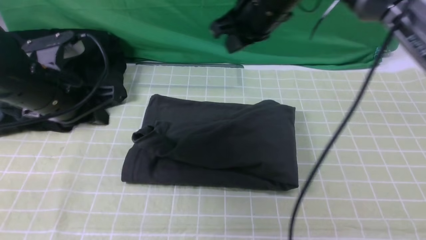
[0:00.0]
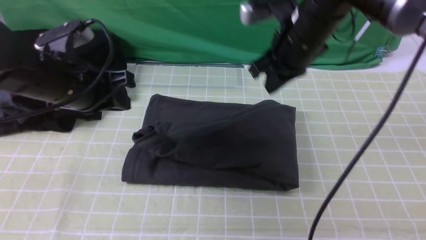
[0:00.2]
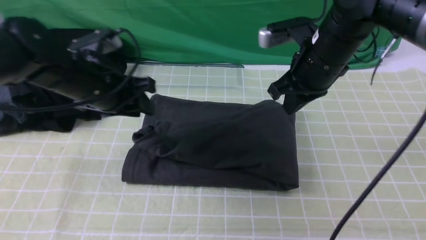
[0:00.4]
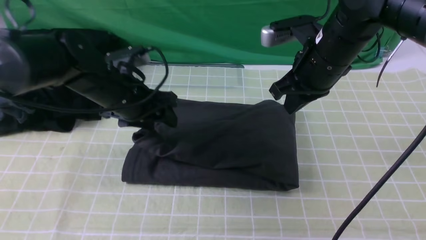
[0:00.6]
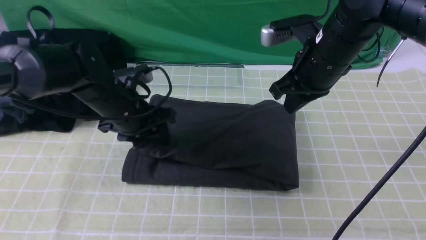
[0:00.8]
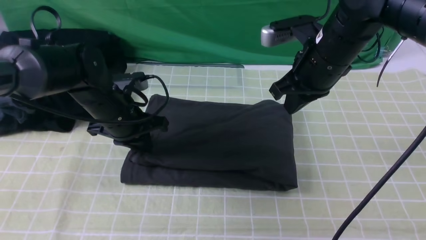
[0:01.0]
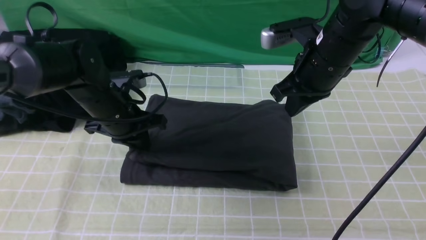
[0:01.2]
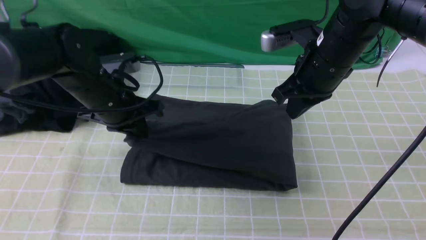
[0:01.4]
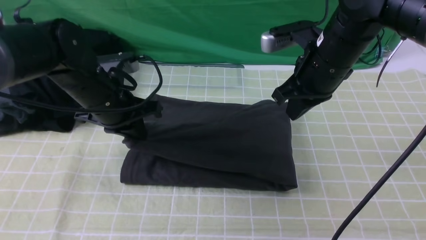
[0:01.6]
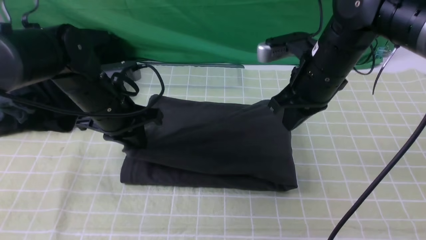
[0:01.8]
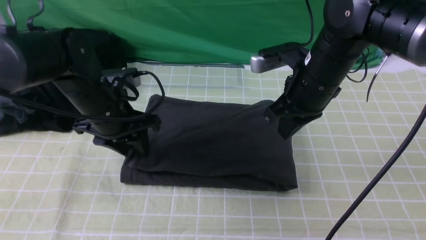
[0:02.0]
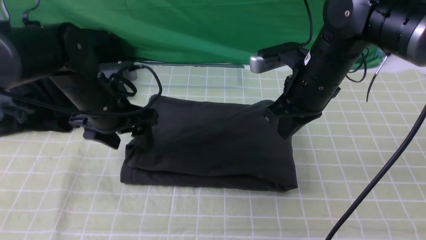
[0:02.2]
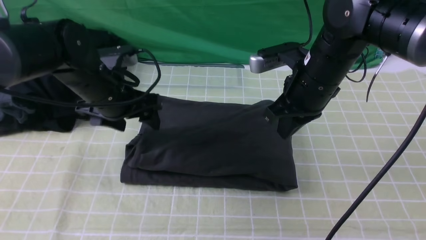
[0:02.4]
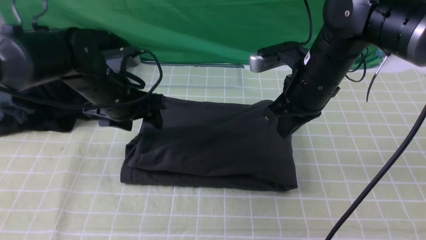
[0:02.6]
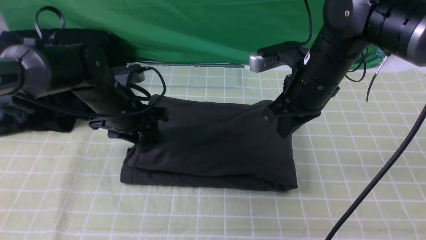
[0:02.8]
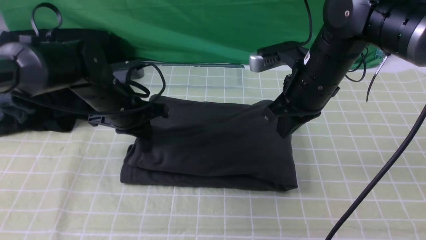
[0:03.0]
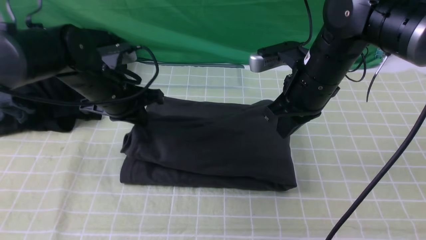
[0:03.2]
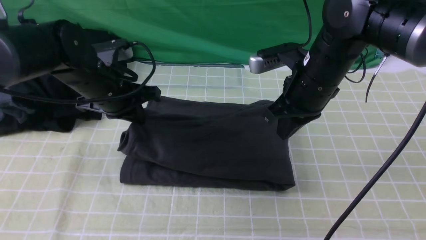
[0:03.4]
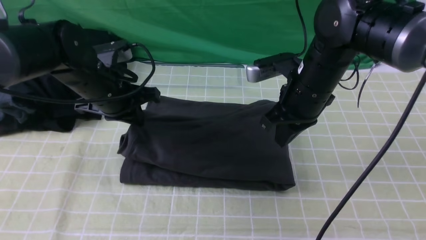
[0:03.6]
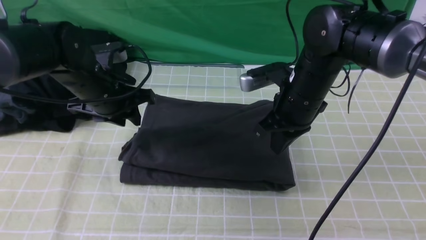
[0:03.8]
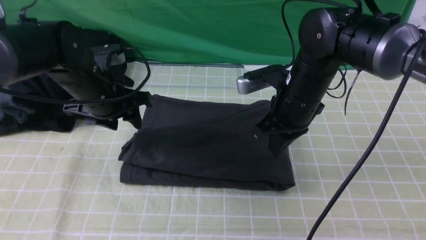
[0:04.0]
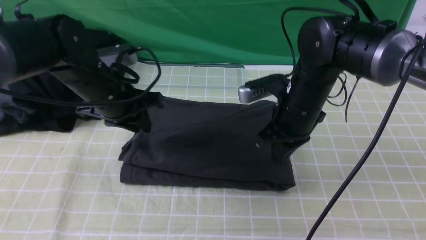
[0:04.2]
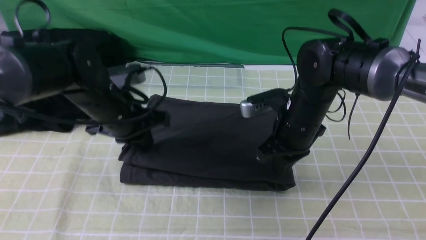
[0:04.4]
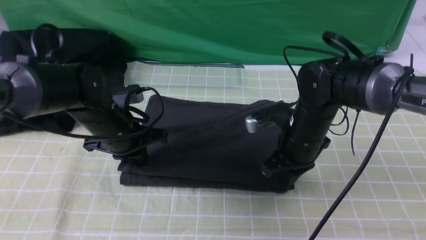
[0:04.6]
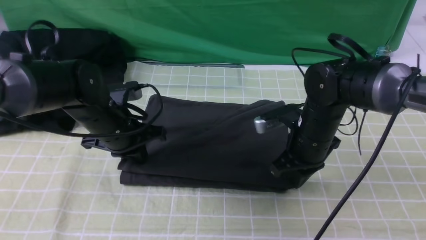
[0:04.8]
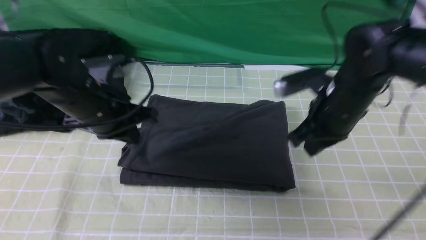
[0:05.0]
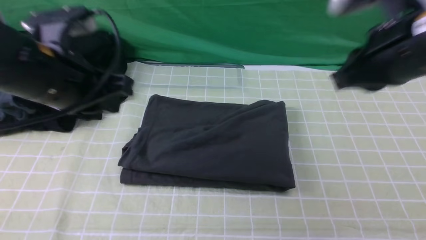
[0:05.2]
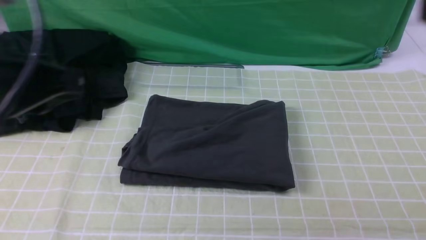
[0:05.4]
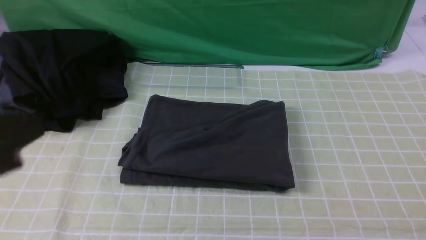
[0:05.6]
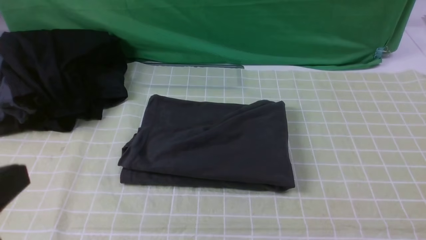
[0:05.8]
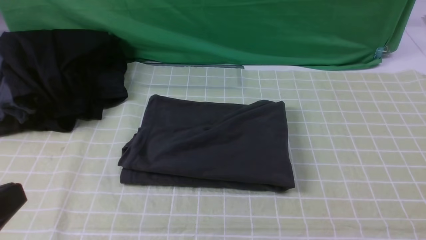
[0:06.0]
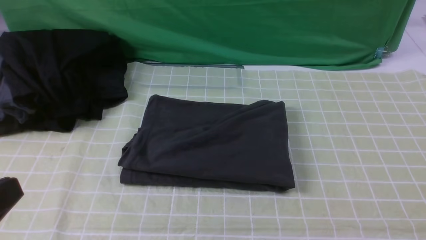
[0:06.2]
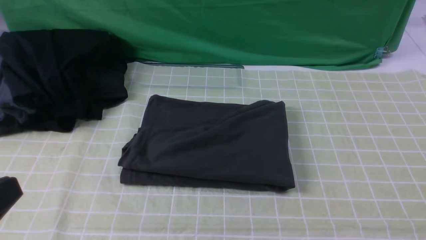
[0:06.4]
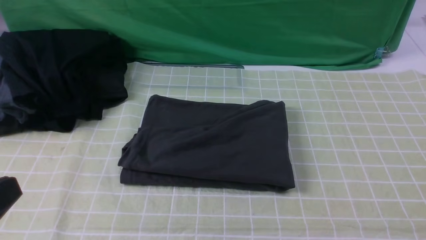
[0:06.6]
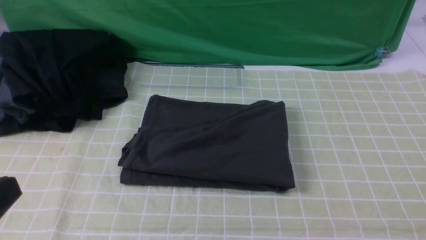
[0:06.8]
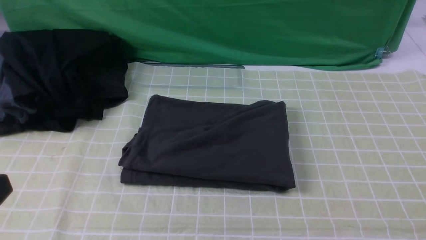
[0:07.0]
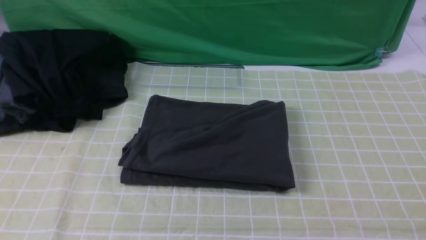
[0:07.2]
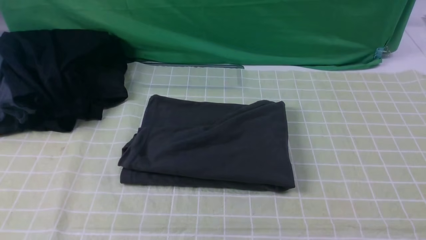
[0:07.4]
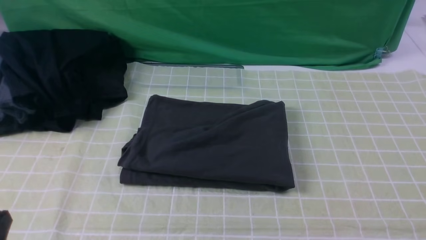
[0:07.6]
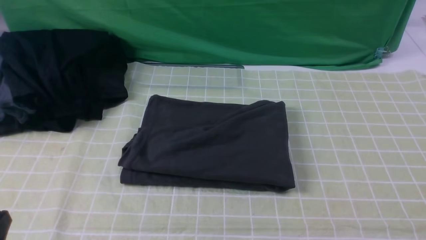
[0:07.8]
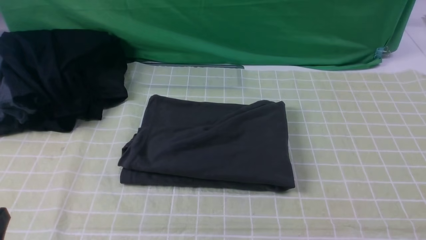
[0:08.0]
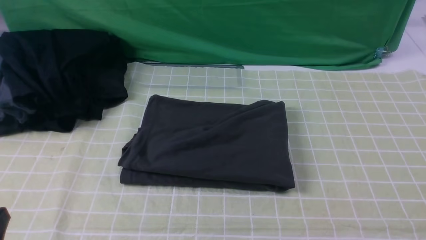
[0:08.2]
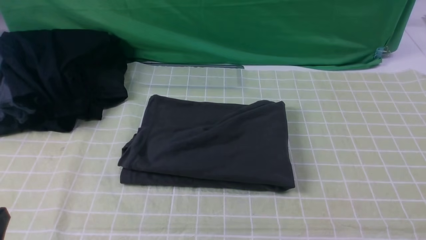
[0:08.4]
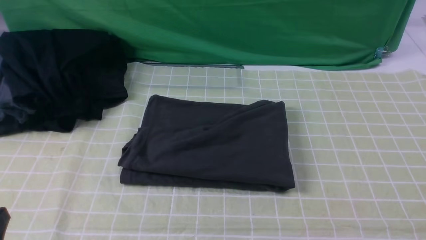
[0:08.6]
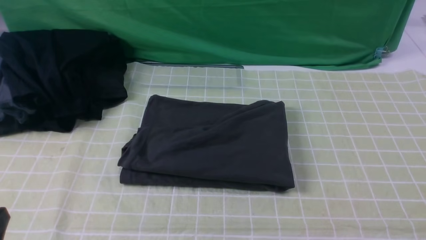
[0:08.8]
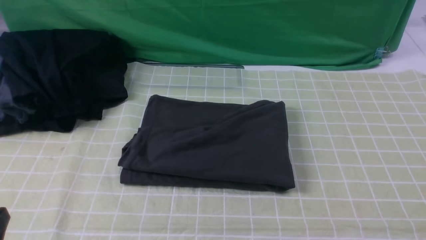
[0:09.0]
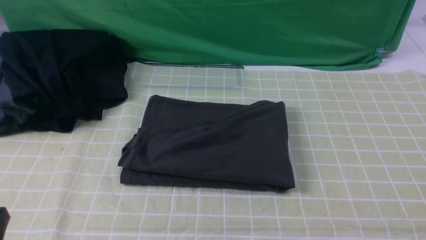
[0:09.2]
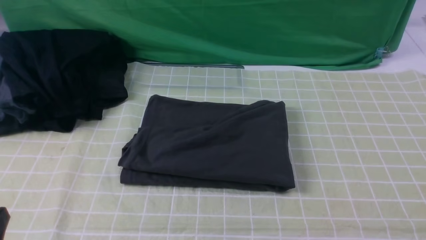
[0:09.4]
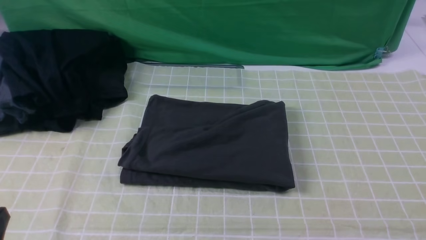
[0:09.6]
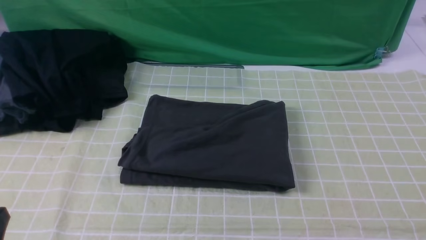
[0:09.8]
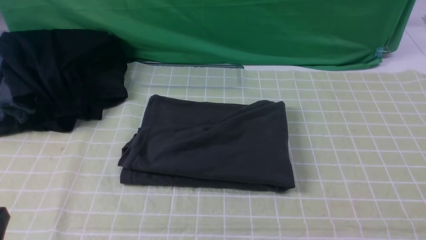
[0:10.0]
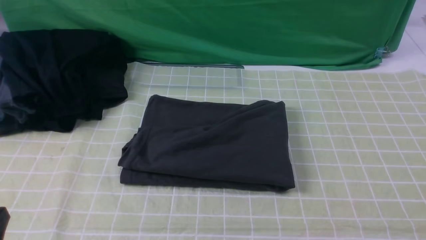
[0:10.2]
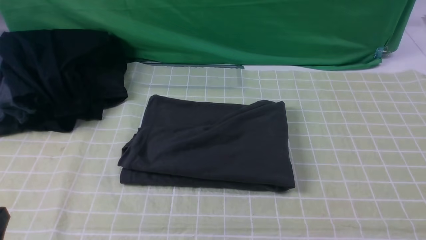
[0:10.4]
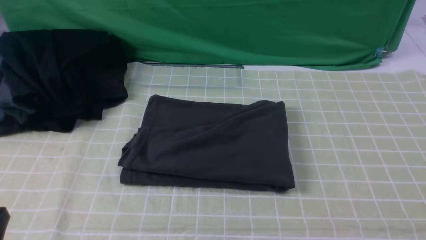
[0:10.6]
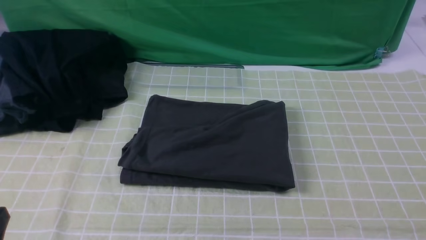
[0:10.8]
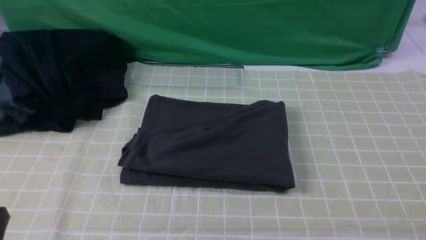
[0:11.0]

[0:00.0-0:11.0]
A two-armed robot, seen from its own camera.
0:00.0 to 0:01.6: The right gripper travels to the right by about 5 cm; the left gripper changes place by about 10 cm, and opens, then closes again.
0:01.6 to 0:03.2: The left gripper opens, then closes once more.
0:03.2 to 0:04.8: The left gripper opens and closes again, while the right gripper heads downward, covering roughly 5 cm.
0:04.8 to 0:06.2: The left gripper goes approximately 30 cm backward; the right gripper travels backward, to the right and upward by approximately 40 cm.
0:06.2 to 0:07.8: The left gripper travels downward by some 10 cm.
0:09.4 to 0:11.0: Both grippers stay put.

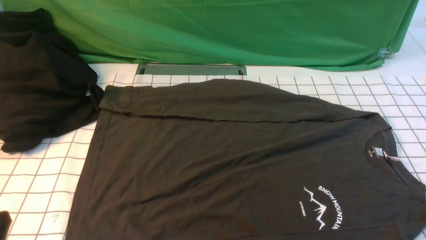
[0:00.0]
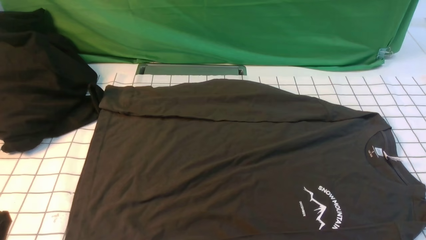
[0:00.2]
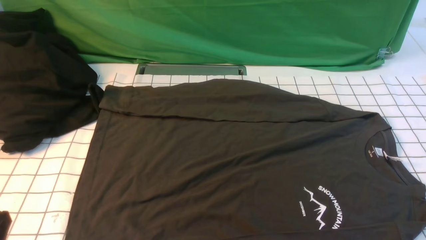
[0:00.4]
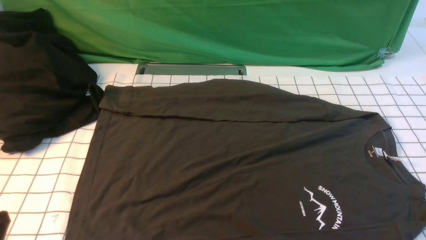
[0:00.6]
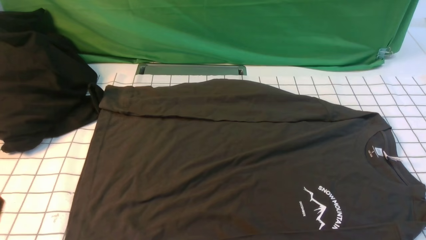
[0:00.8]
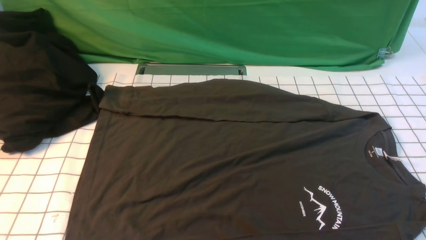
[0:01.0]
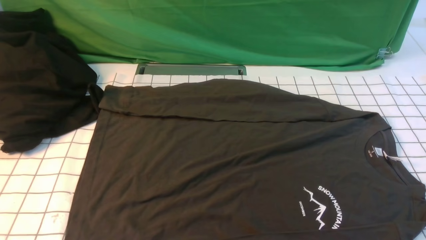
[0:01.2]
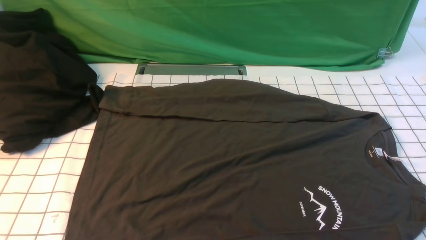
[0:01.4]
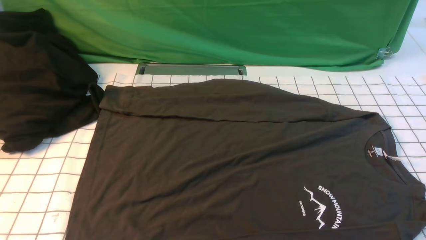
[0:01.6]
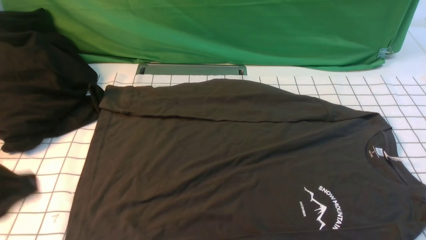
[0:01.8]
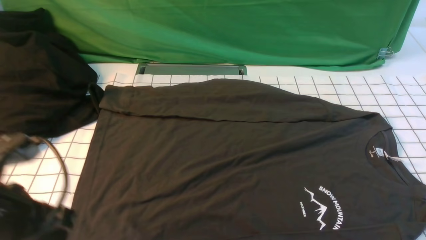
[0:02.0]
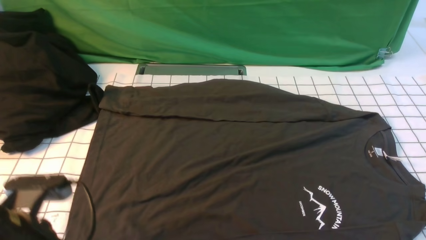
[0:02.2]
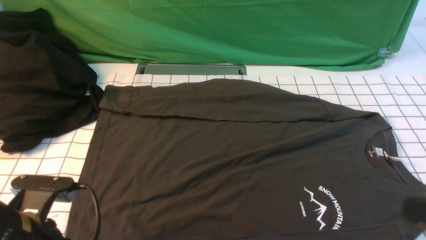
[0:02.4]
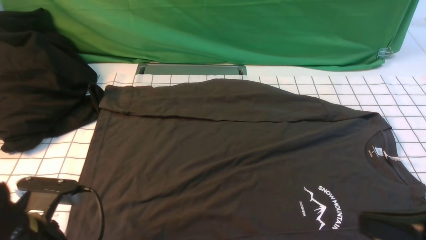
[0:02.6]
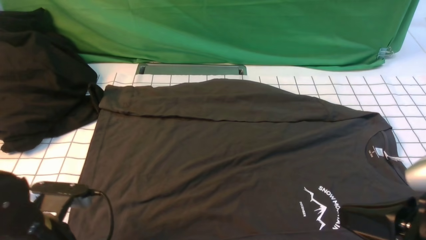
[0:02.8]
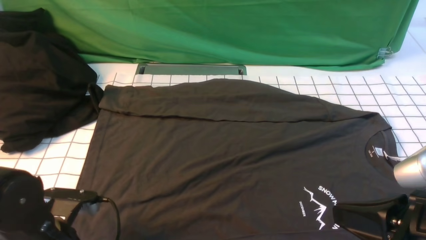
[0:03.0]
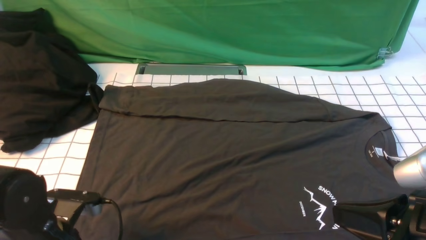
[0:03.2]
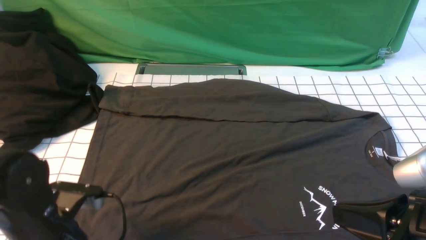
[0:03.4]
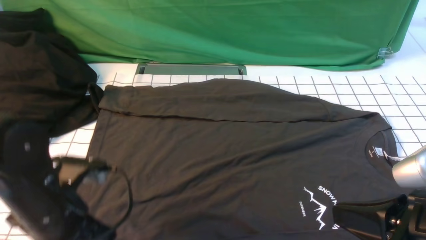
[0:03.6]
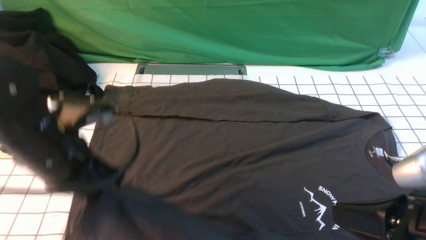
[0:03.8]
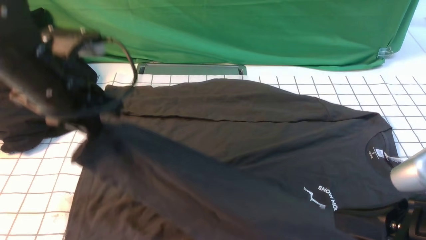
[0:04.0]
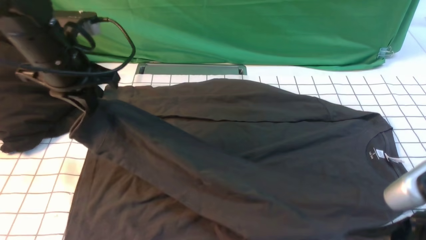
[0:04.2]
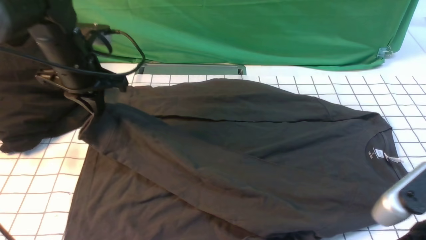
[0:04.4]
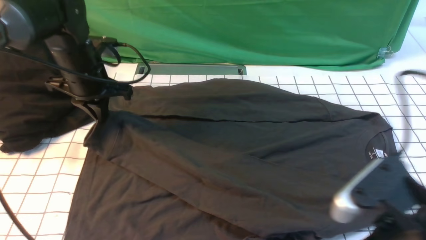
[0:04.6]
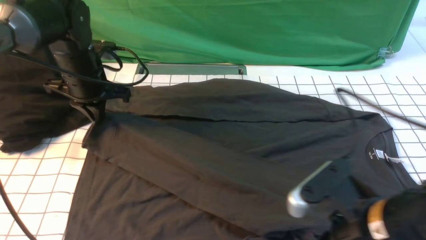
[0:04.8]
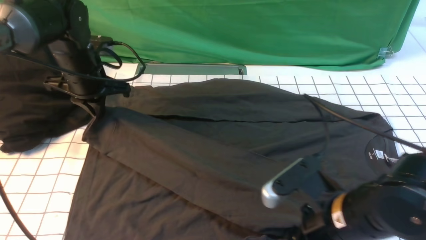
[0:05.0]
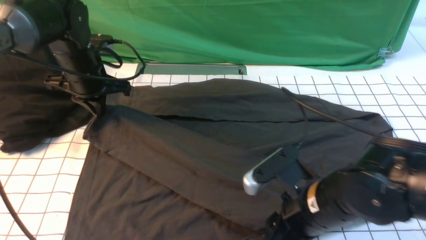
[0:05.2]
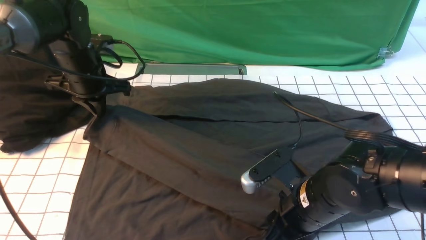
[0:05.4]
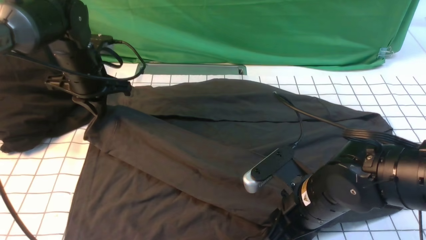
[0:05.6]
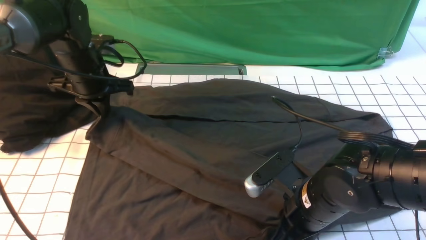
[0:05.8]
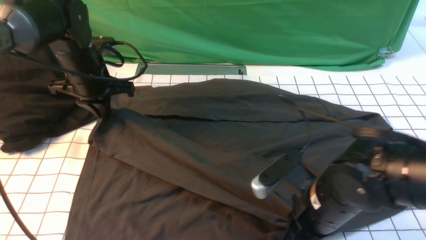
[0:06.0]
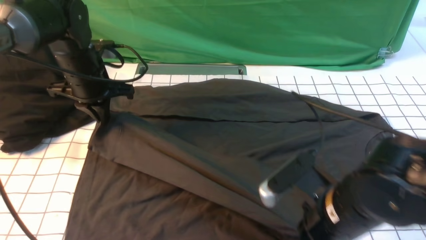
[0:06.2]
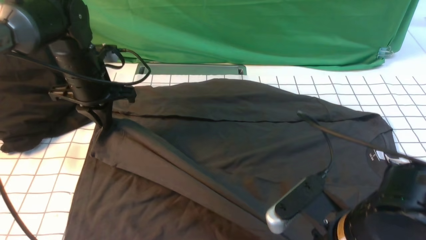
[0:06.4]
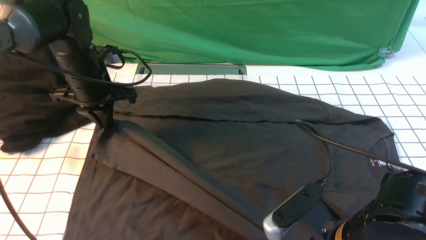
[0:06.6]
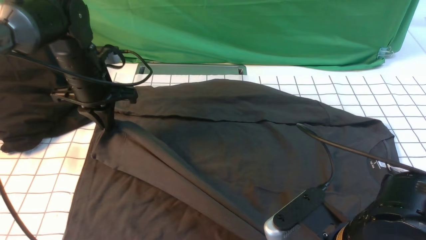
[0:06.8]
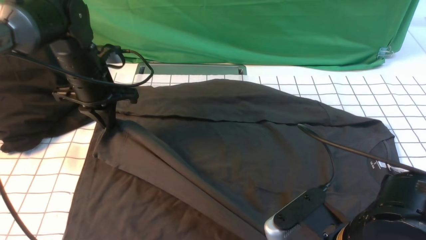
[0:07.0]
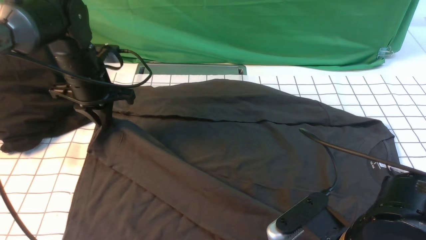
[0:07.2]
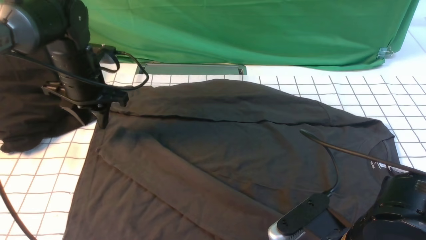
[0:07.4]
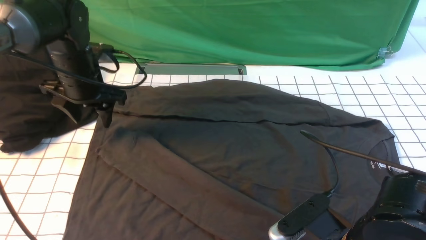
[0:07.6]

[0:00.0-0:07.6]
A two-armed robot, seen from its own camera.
Step, 0:00.0 to 0:03.2: use the left arm to clamp the cuff closest to it.
Step, 0:03.4 to 0:07.4: use the left arm to drag and place the cuff at the centered position on the left edge of the fabric.
0:01.6 to 0:03.0: The right gripper moves to the left and upward, about 15 cm, and closes. Meanwhile the left gripper heads downward and forward, covering some 20 cm, and opens up.
0:03.0 to 0:04.6: The left gripper heads forward, covering some 25 cm, and closes up.
0:04.6 to 0:06.0: The right gripper shifts about 10 cm forward, downward and to the left, and opens, then closes once more.
0:06.0 to 0:07.6: The right gripper moves backward, approximately 5 cm, and opens, while the left gripper opens.
